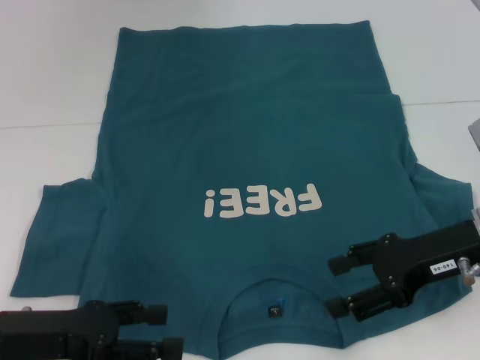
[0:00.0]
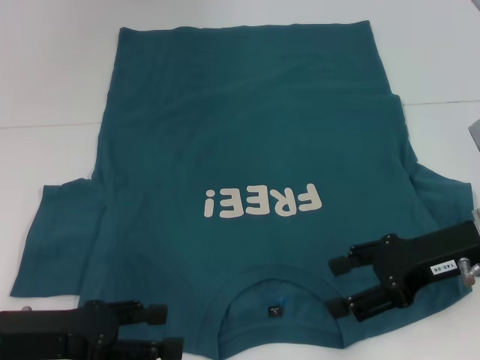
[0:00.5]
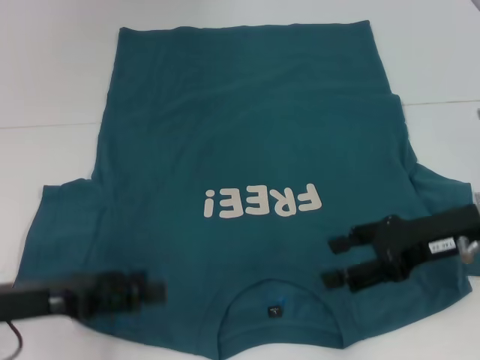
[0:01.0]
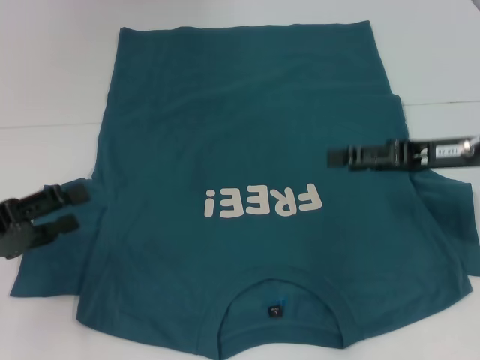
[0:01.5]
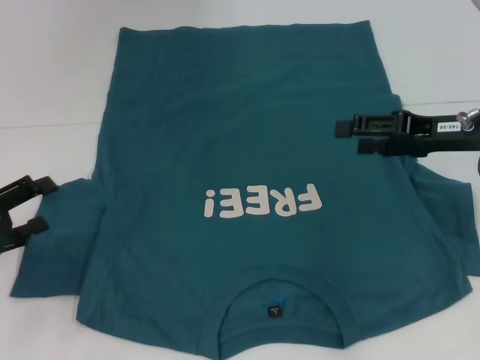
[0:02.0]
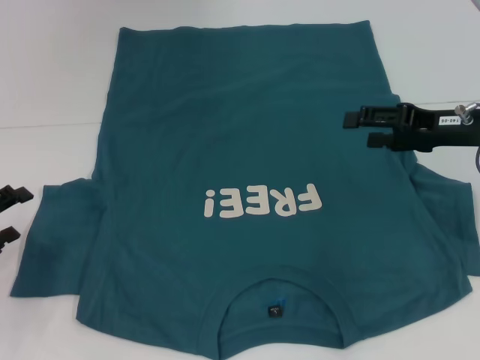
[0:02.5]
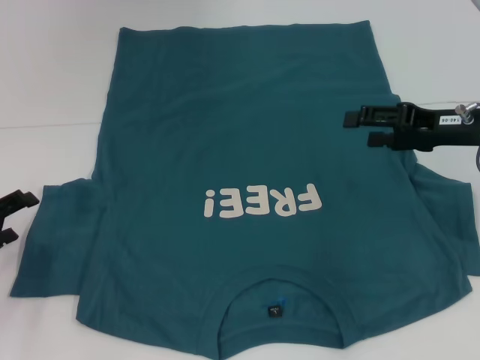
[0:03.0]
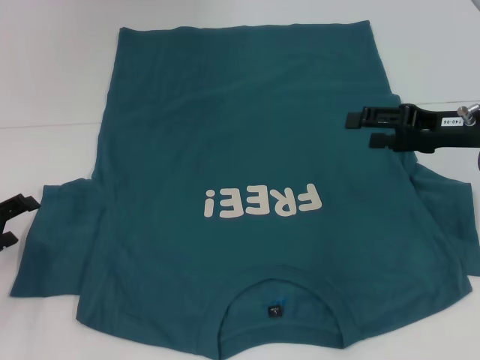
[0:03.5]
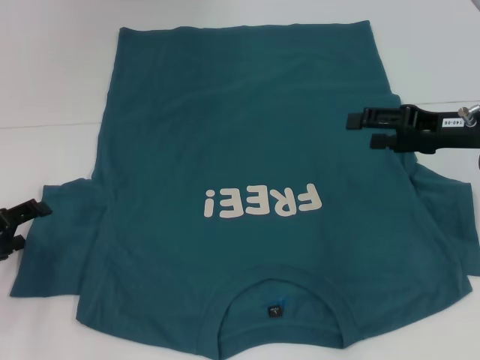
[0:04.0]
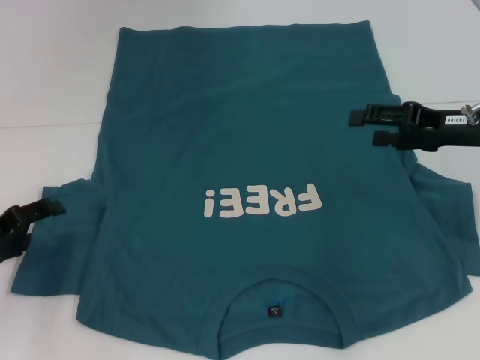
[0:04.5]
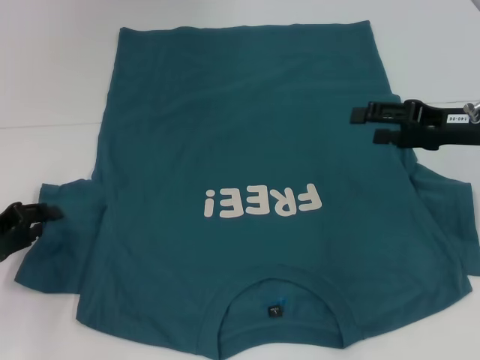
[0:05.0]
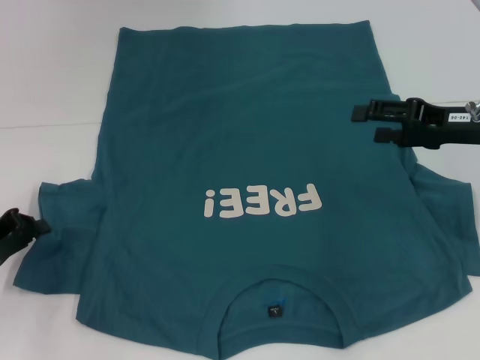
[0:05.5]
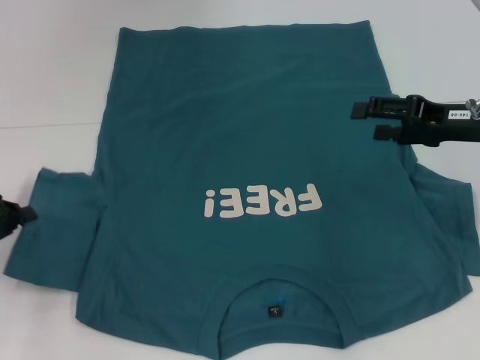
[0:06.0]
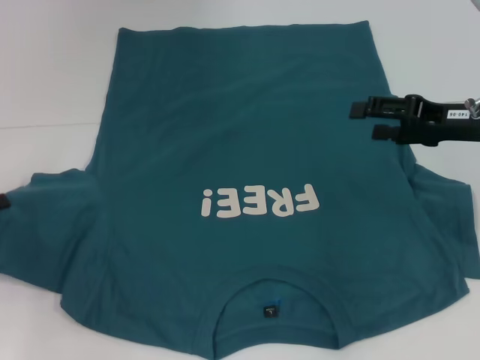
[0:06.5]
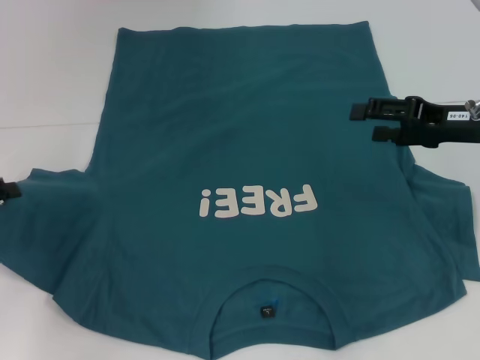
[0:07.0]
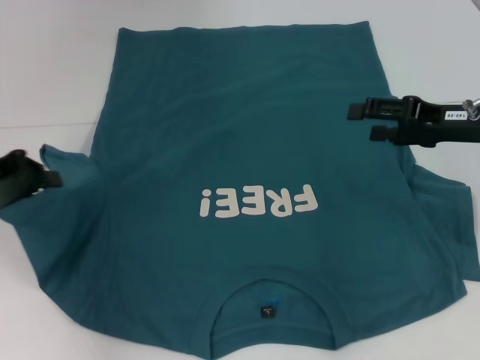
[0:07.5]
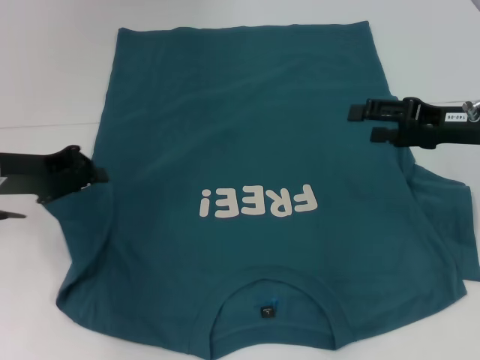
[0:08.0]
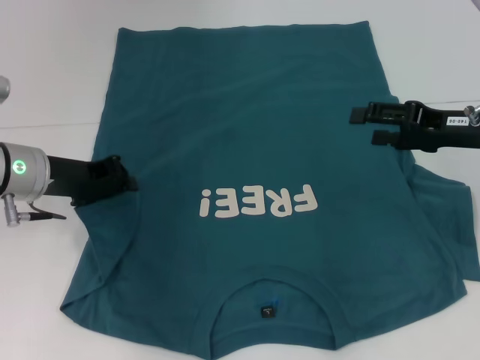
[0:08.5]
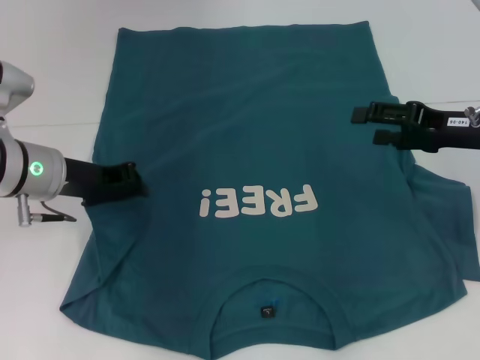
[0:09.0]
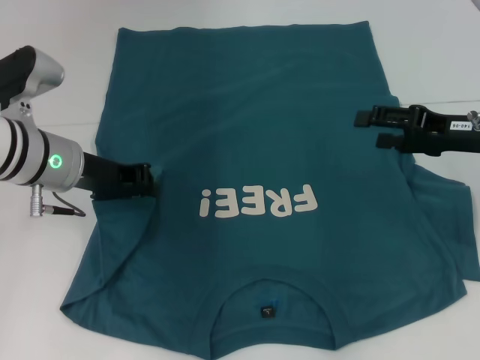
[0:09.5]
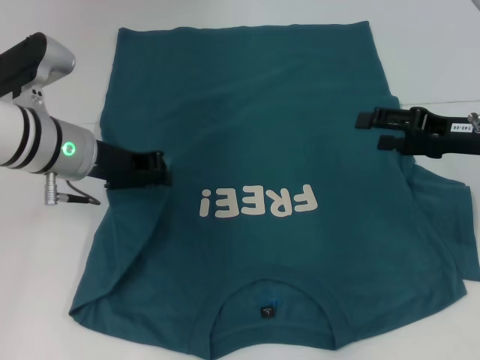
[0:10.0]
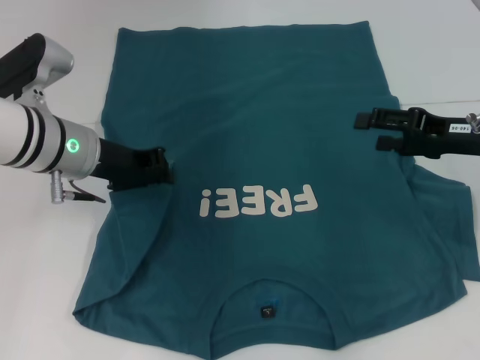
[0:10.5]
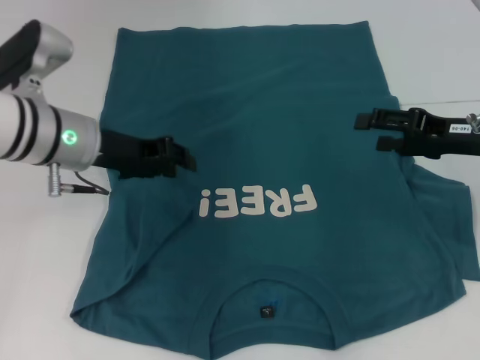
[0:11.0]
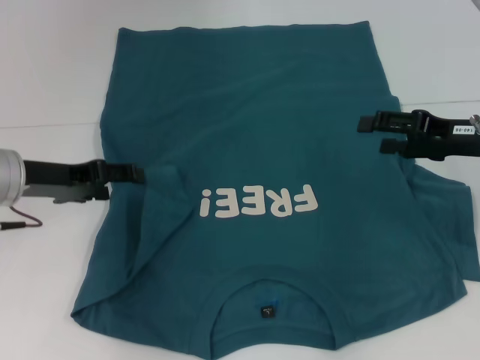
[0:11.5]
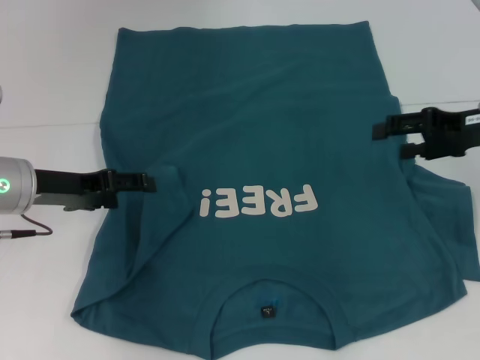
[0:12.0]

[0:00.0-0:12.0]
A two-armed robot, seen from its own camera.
0.0 to 2.0 s: The right gripper heads forward, covering some 5 cm. The left gripper travels to the left by roughly 10 cm.
4.0 to 6.0 s: The left gripper closes its fingers.
6.0 to 8.0 s: The left gripper goes approximately 10 cm to the right, upward and forward.
8.0 to 10.0 s: The left gripper heads to the right, covering roughly 10 cm.
10.0 to 12.0 s: The left gripper heads to the left, covering roughly 5 cm, and opens its fingers.

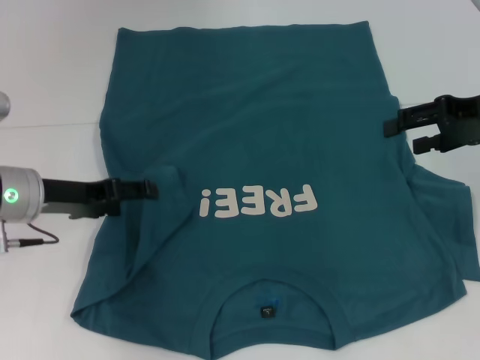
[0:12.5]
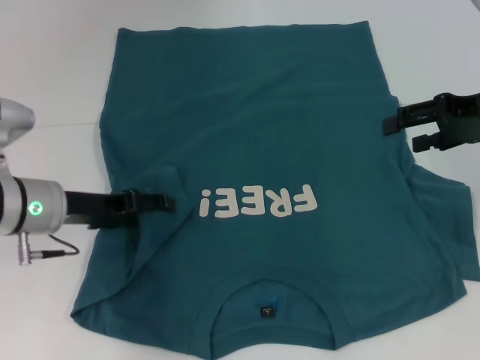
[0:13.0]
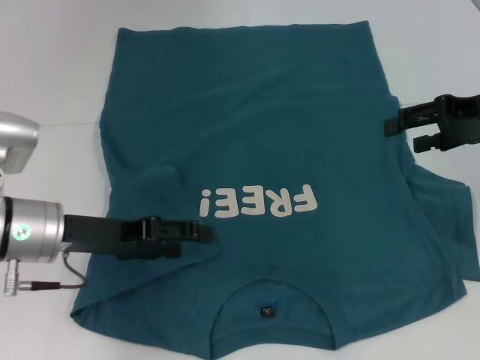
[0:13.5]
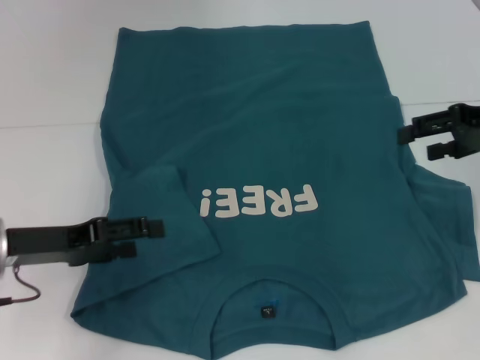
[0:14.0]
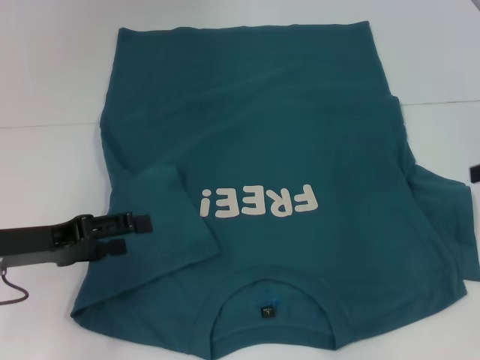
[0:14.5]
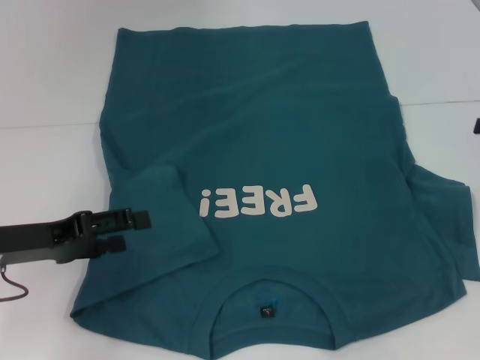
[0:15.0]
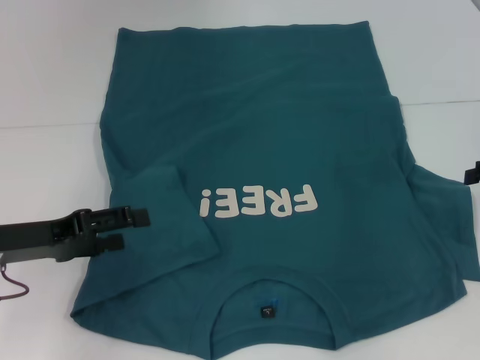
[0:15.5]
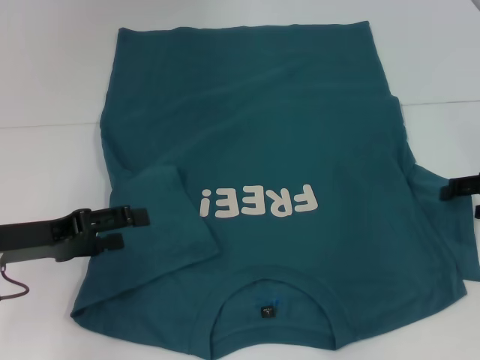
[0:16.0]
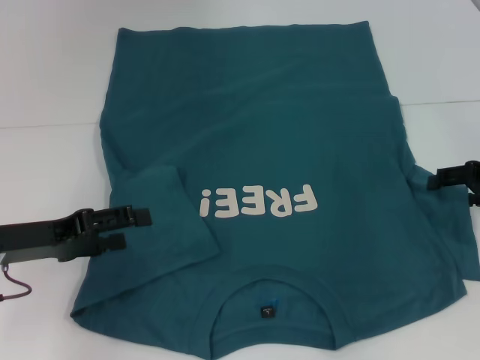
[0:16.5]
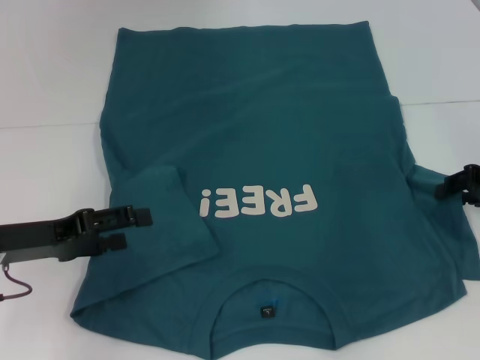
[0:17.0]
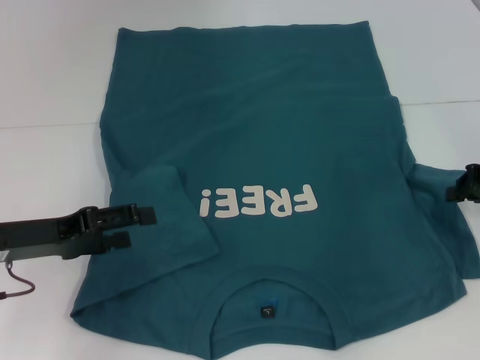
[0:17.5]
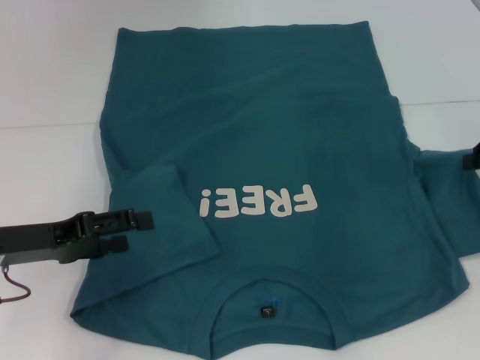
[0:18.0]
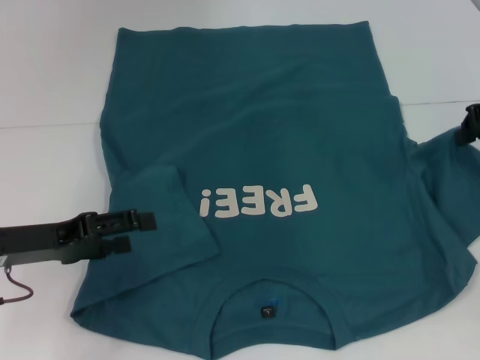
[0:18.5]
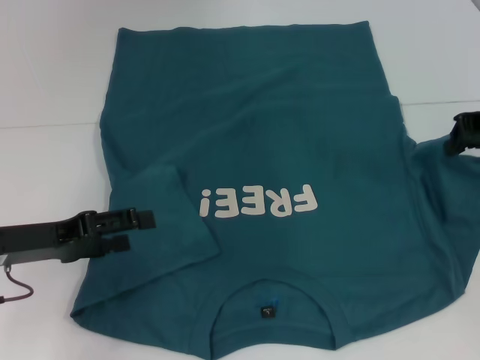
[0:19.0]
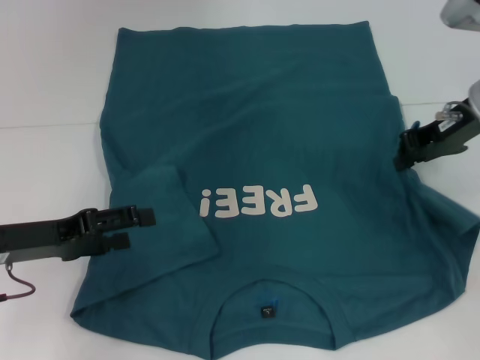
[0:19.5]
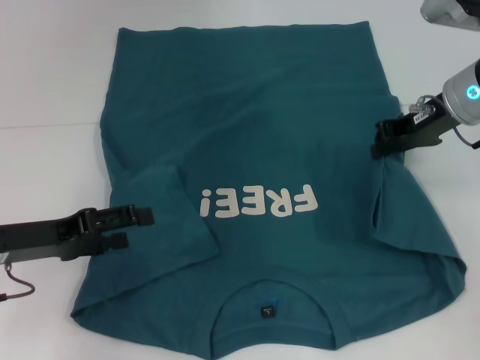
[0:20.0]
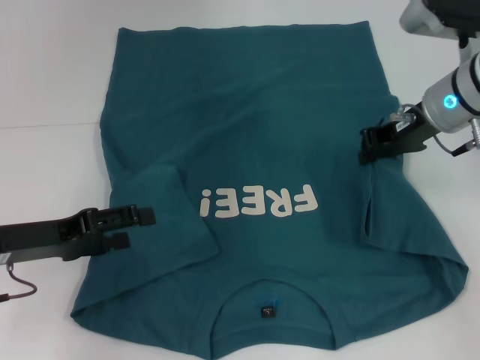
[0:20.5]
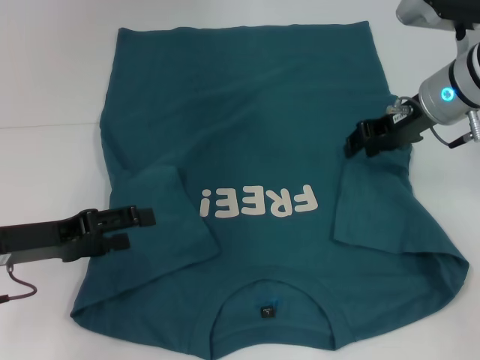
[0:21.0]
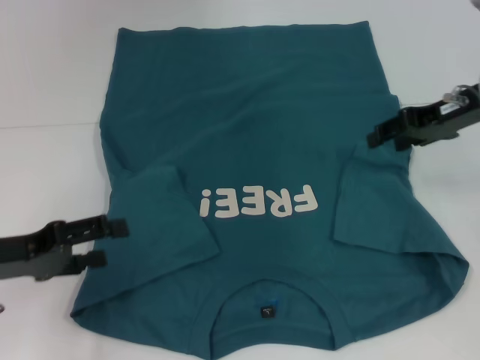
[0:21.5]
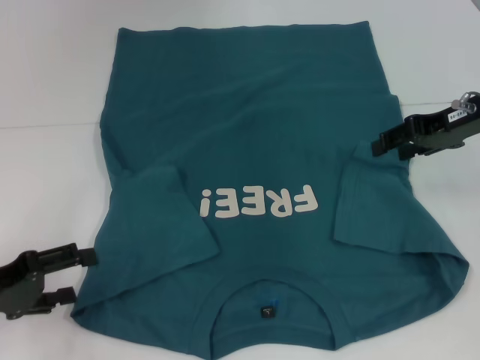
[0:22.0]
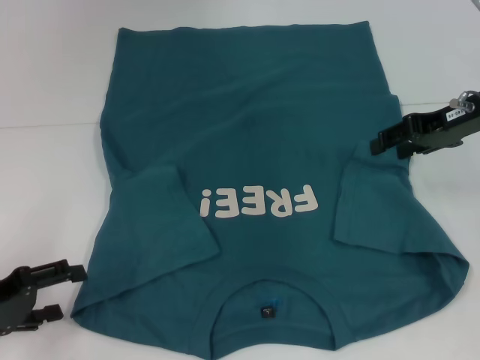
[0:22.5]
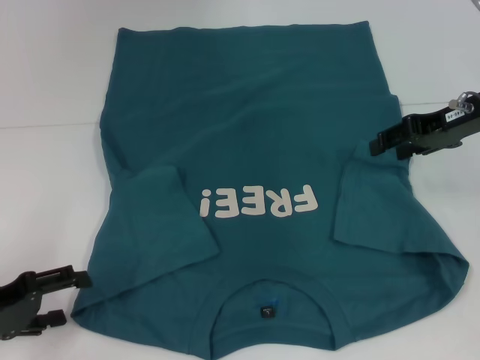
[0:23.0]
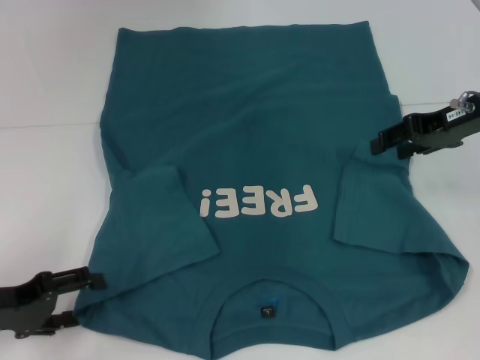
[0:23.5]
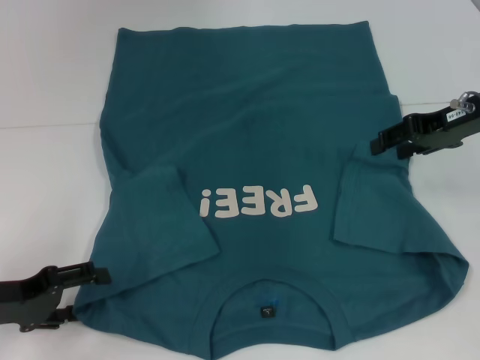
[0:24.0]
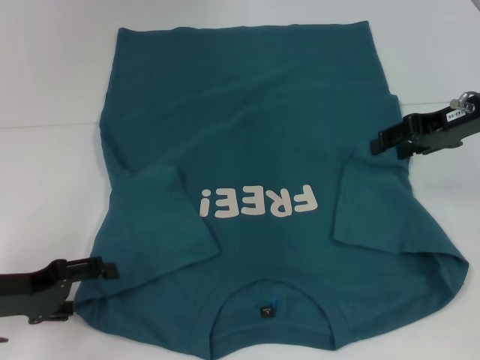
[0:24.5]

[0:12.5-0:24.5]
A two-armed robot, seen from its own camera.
Step, 13.5 to 21.0 s: Fold the bottom right sleeve to the right.
12.5 to 14.5 s: The right gripper is displaced to the right by some 10 cm; the left gripper shifts roughly 5 cm backward.
14.5 to 16.5 s: The right gripper shifts roughly 5 cm downward.
16.5 to 18.5 s: The right gripper moves upward, about 10 cm, and closes.
18.5 to 20.5 s: The right gripper travels to the left by approximately 10 cm.
20.5 to 22.5 s: The right gripper heads to the right, covering about 5 cm, and opens its fingers, while the left gripper moves to the left, roughly 5 cm.
22.5 to 24.5 s: The grippers stay close to where they were, moving slightly.

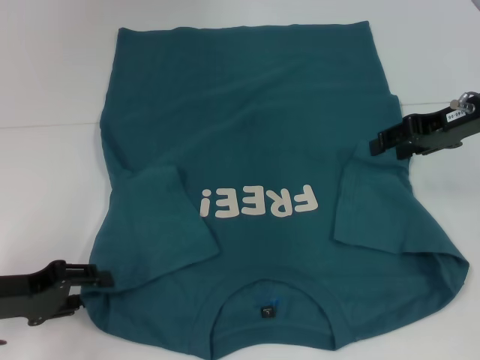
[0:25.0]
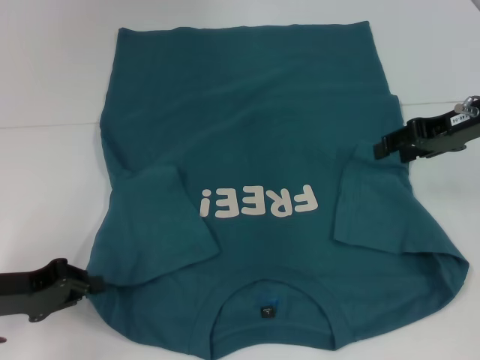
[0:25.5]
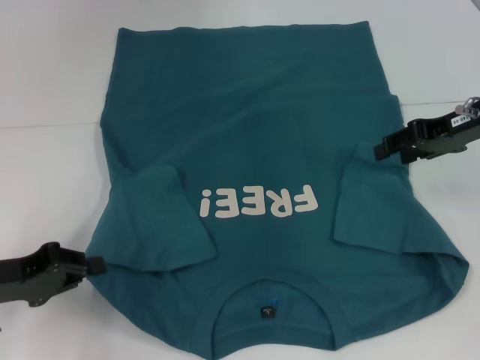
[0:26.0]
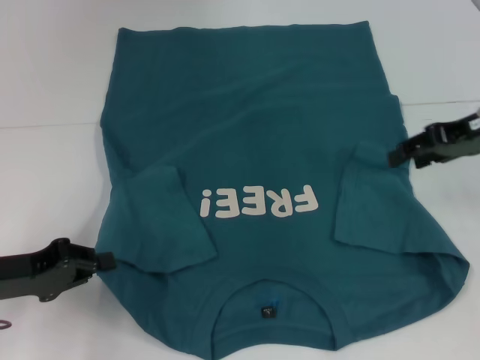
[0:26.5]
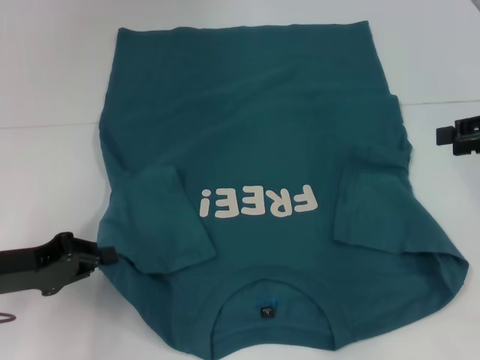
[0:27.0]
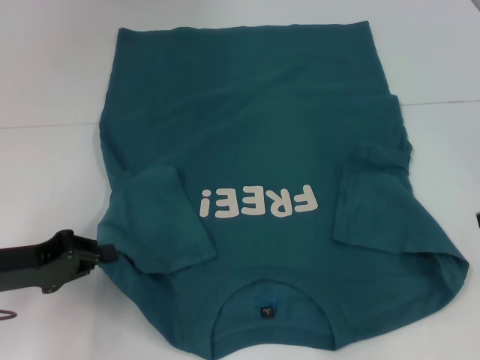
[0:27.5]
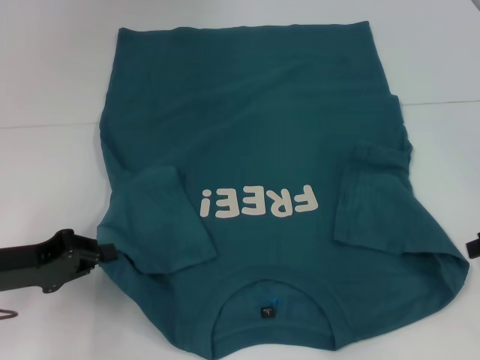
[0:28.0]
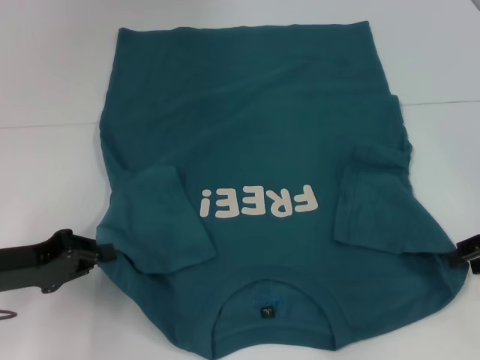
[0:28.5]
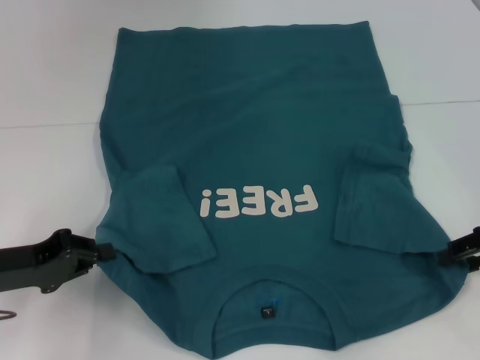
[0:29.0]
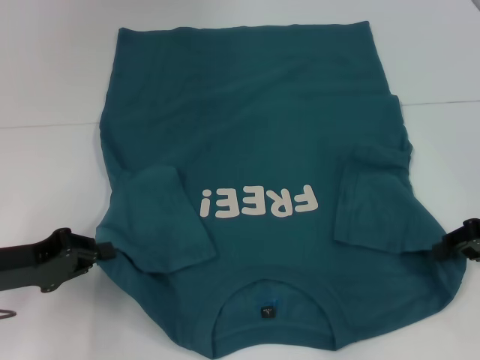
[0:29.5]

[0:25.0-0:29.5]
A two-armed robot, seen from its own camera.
25.0 to 27.0 s: The right gripper is displaced to the right and backward by roughly 10 cm. Meanwhile the left gripper closes.
27.0 to 29.5 s: The right gripper moves downward, about 10 cm.
